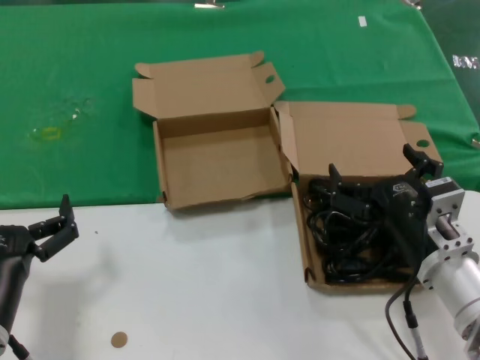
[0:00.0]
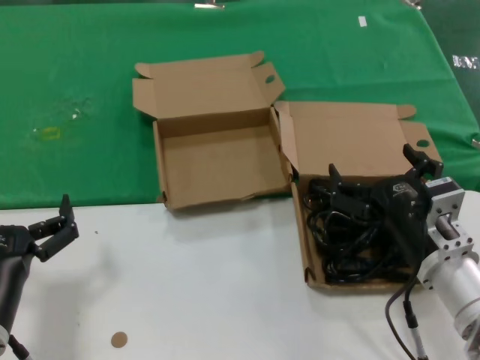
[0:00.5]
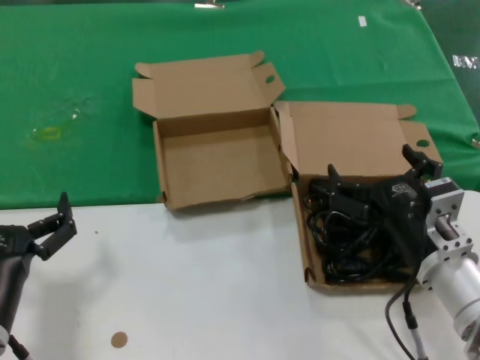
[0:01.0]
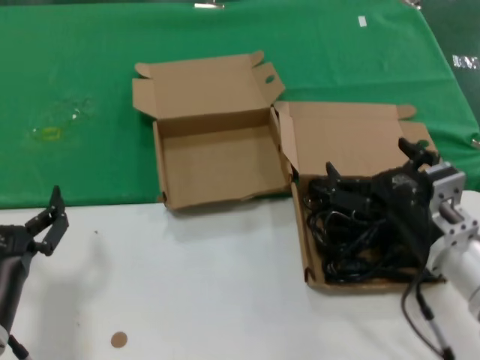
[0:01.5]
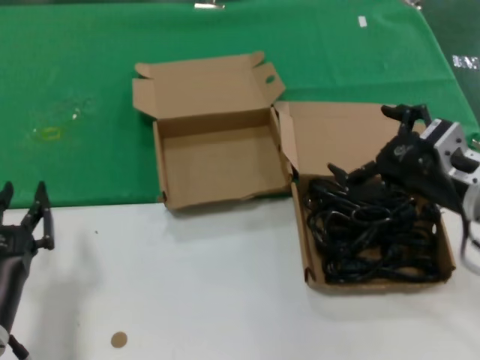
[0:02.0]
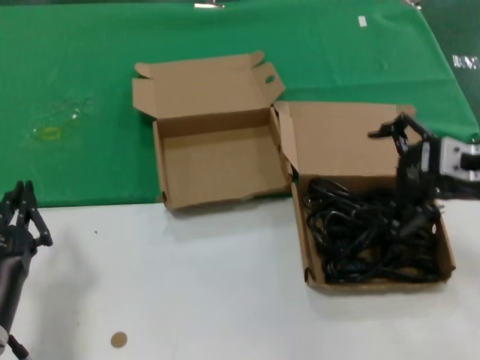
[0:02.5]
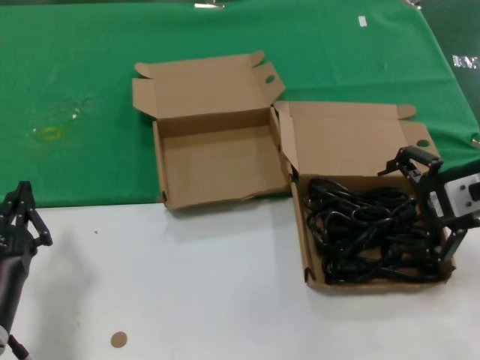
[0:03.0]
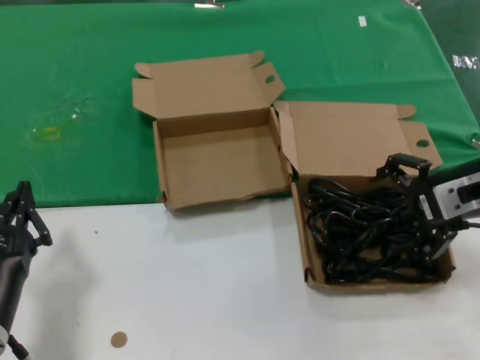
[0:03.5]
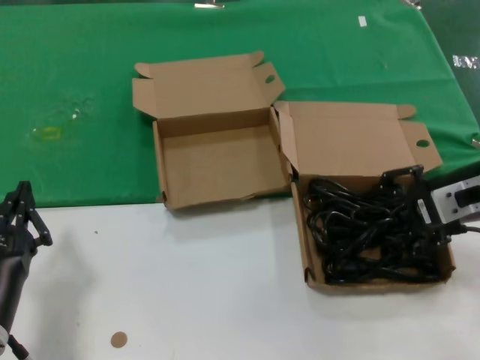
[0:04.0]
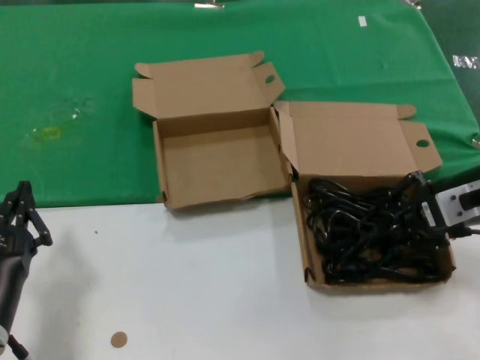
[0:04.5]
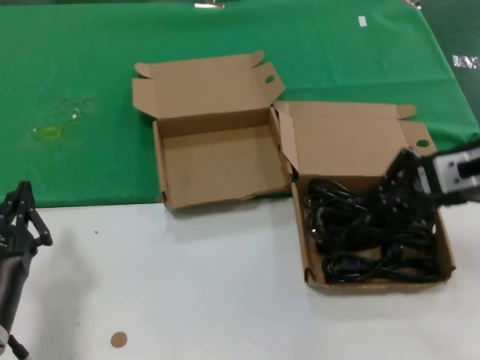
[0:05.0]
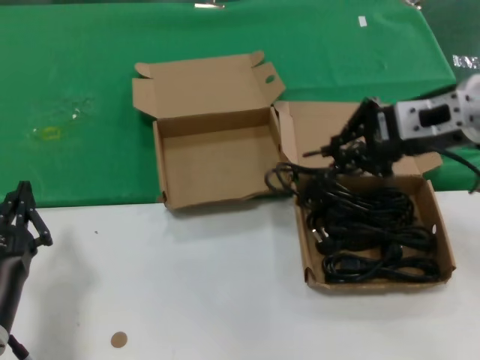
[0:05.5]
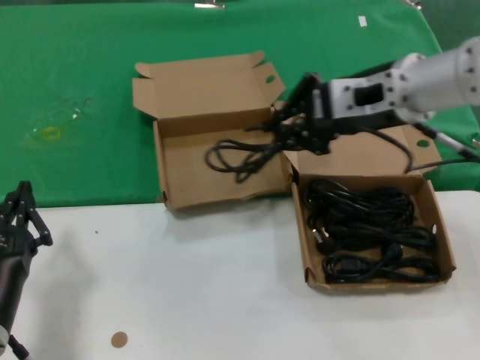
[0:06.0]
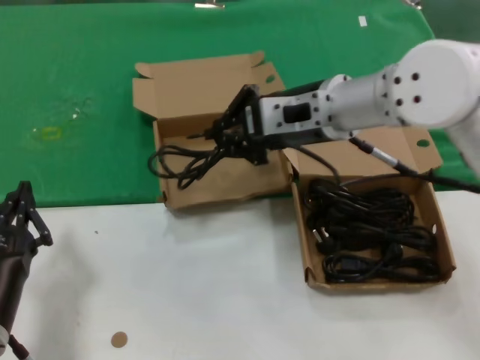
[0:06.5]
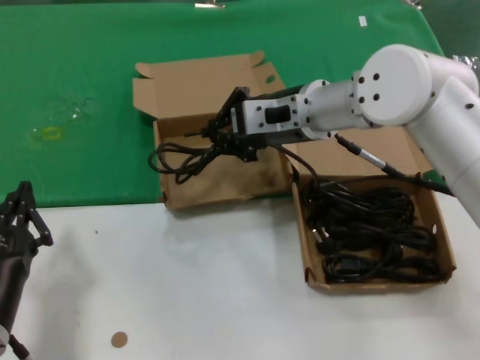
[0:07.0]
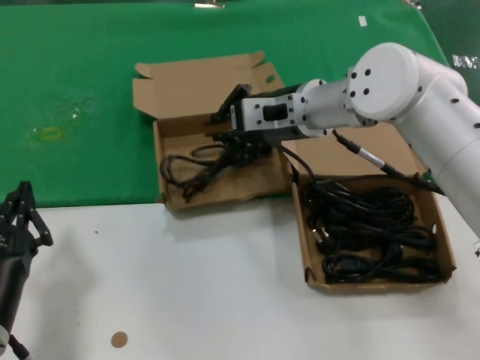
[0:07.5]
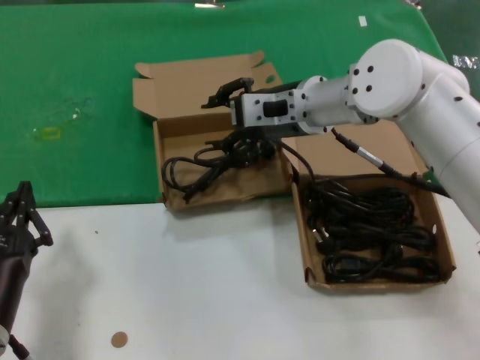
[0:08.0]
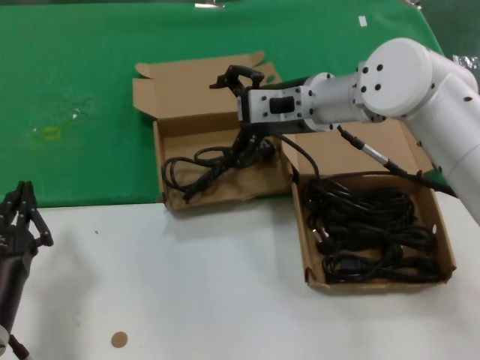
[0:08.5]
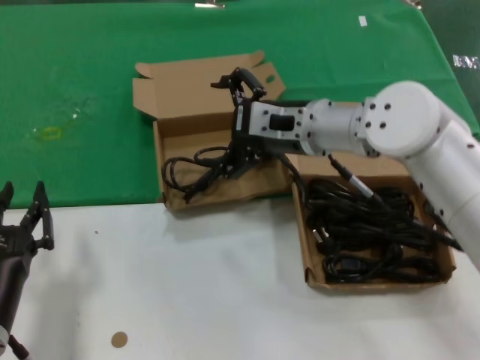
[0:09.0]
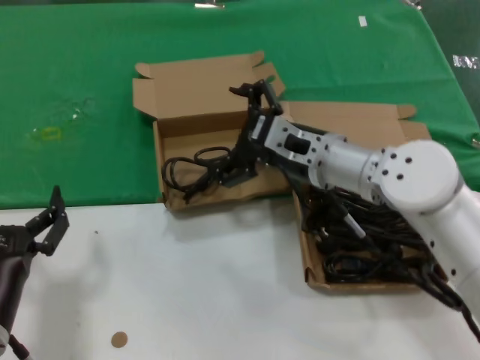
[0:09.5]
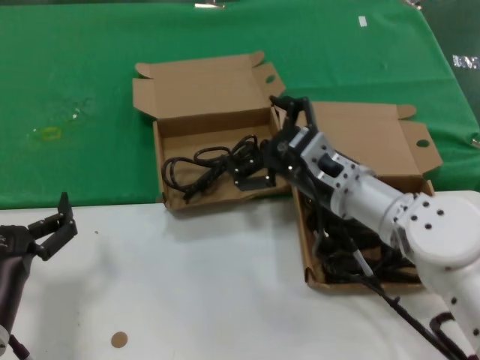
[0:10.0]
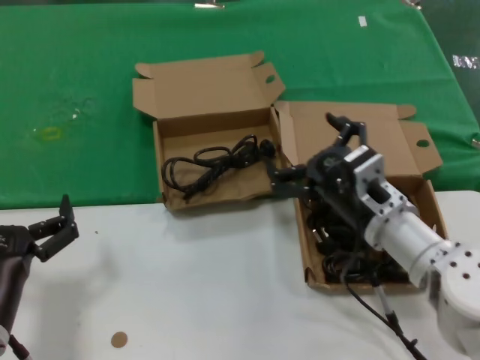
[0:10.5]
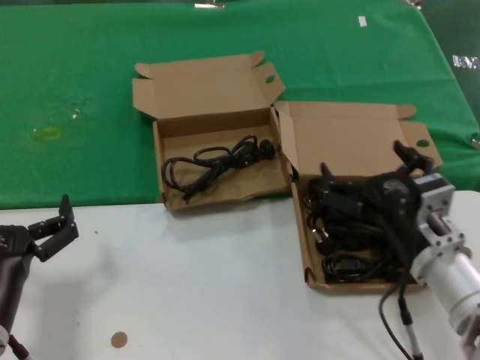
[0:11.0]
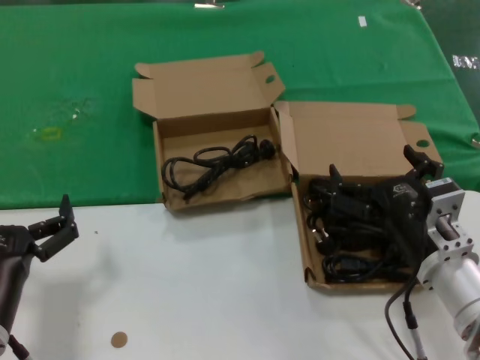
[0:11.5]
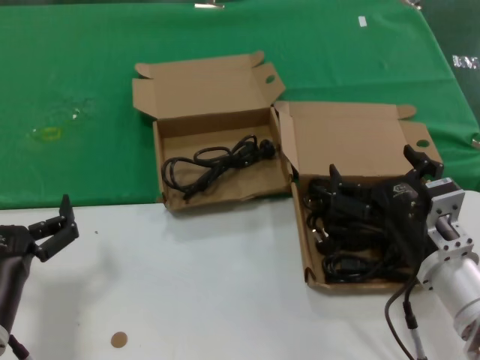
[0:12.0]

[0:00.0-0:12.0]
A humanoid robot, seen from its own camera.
Task of the whole recording: take the parts from the box containing them and put them into an empty box.
Step, 0.0 to 4.0 s: Grasp the data cable.
Step, 4.5 to 7.5 s: Place the data cable in the another box.
0.0 to 2.0 s: The right hand travels upward and to the right by about 10 cm.
2.0 to 4.0 s: The right hand shifts some 5 cm upward.
4.0 to 6.0 s: The right hand goes some 15 cm to the left and upward.
6.0 to 8.0 s: The right hand is displaced to the left, forward and downward by approximately 15 cm.
8.0 to 10.0 s: The right hand travels downward and backward by roughly 15 cm.
10.0 to 12.0 s: The right hand is displaced backward, to the right and downward by roughly 15 cm.

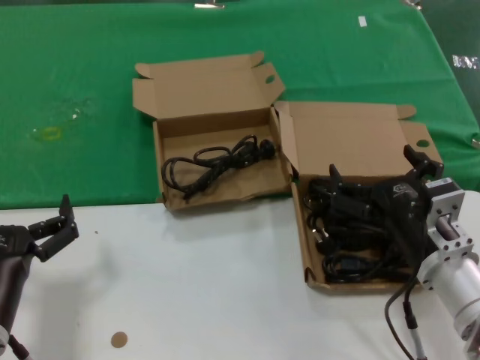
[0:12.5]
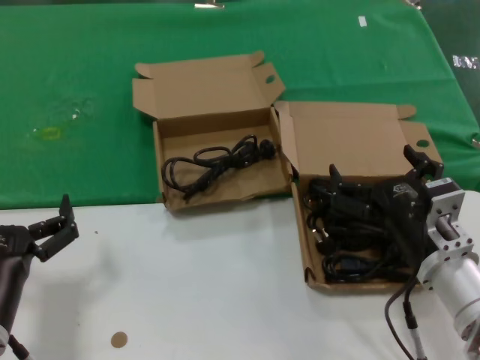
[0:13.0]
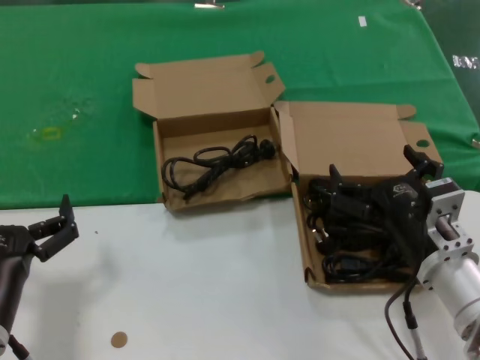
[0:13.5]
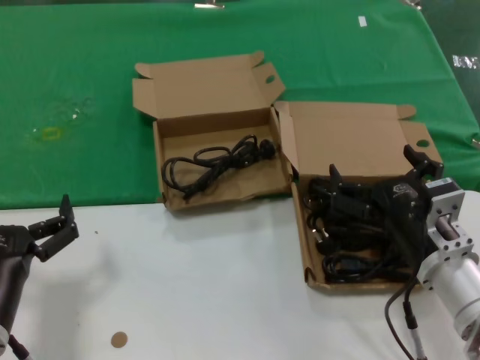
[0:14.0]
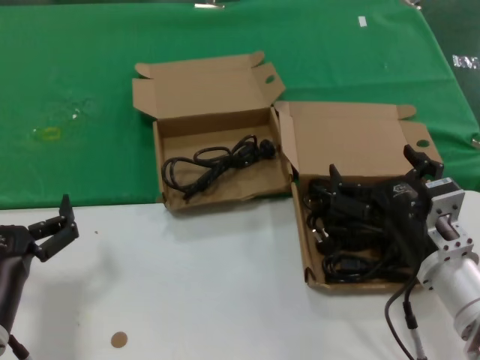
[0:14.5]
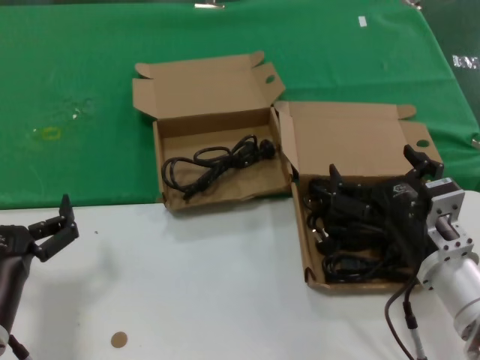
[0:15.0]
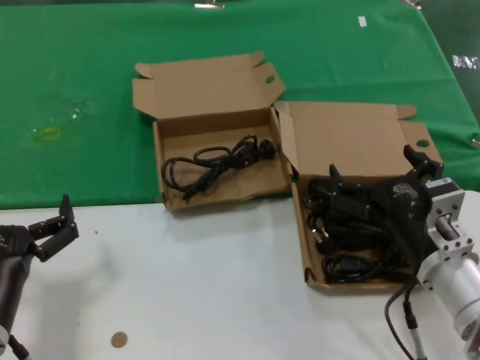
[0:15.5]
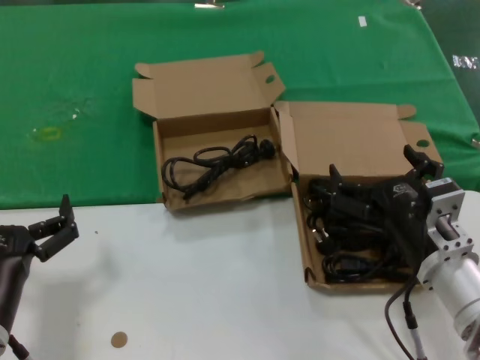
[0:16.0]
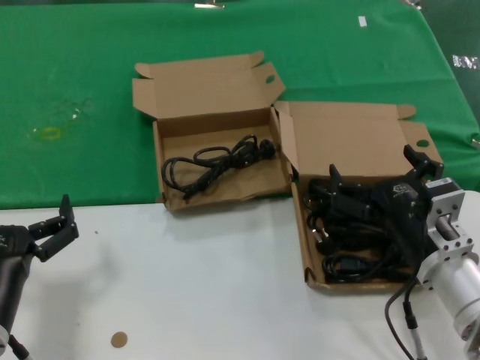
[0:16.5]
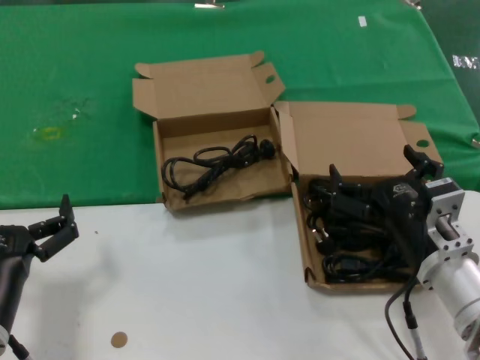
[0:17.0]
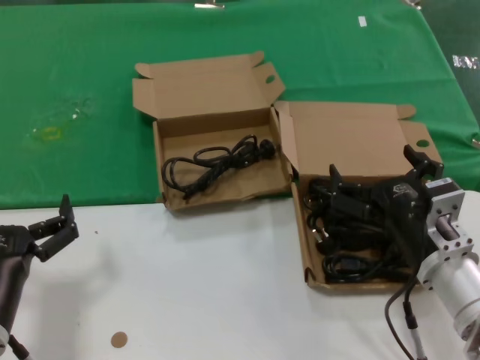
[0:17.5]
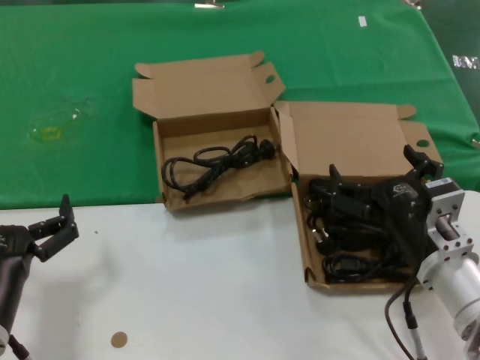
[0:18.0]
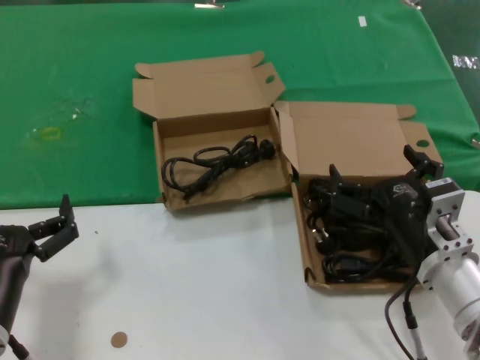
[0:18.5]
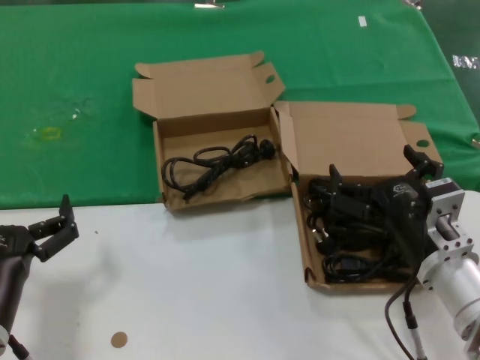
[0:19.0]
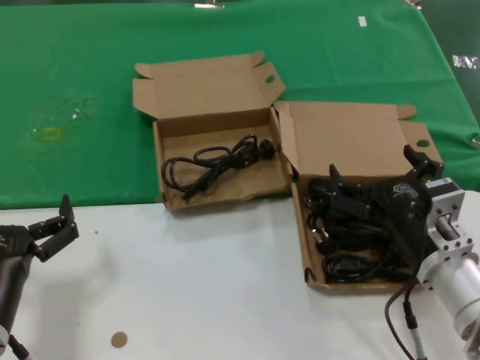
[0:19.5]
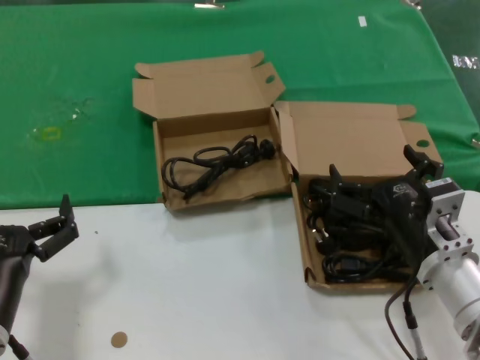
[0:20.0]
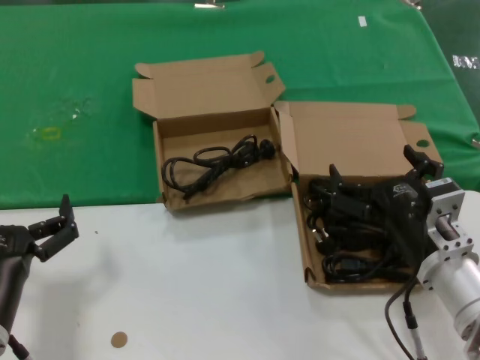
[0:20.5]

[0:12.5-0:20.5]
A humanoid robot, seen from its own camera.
Task of the whole recording: take the parts from the box containing them and put them into an empty box.
12.5 to 20.5 s: Both hands stay about where they are.

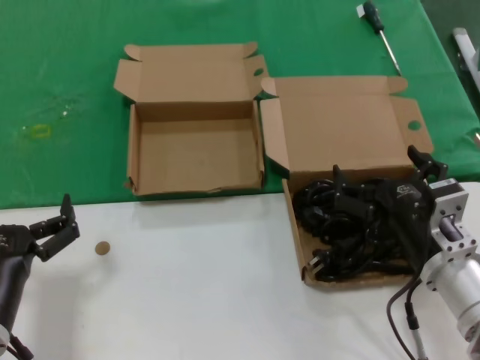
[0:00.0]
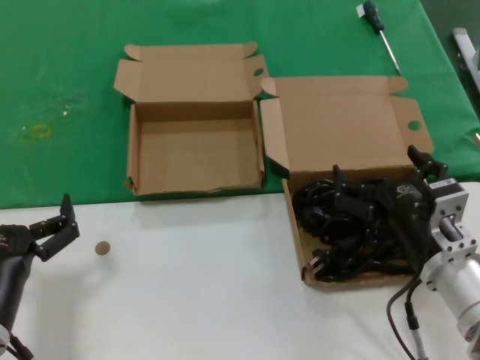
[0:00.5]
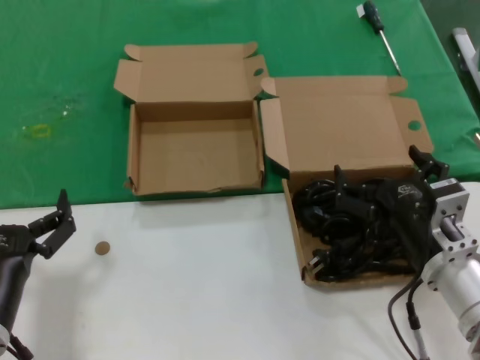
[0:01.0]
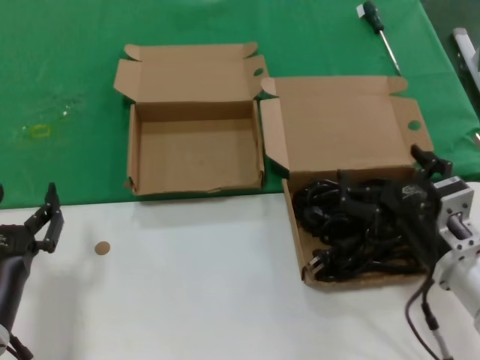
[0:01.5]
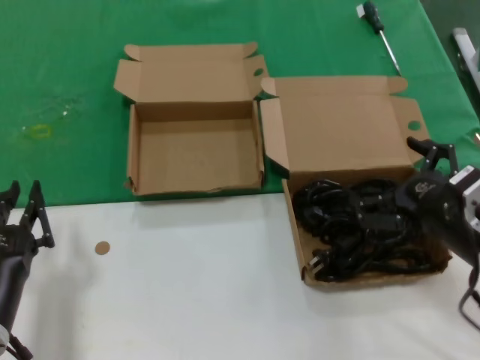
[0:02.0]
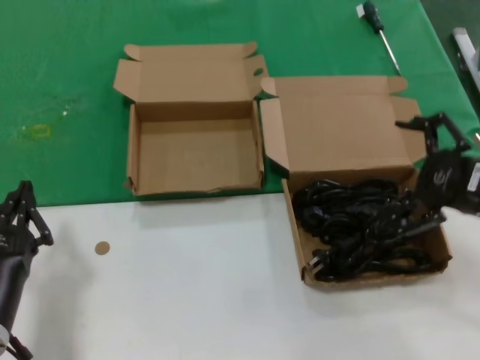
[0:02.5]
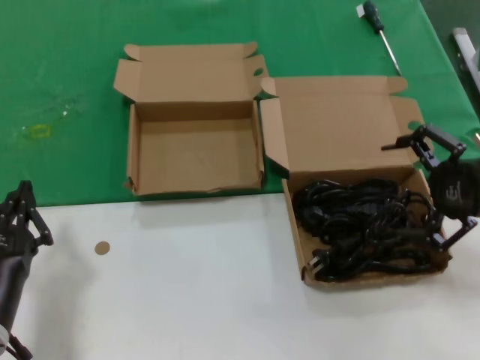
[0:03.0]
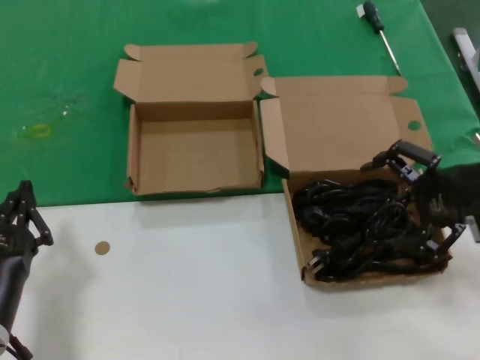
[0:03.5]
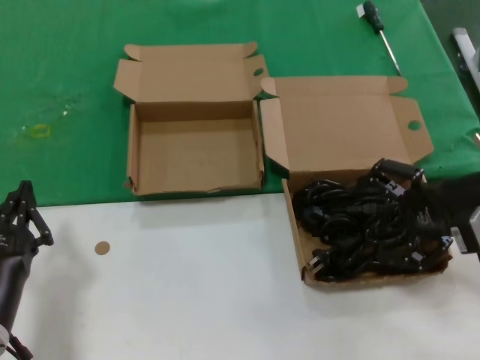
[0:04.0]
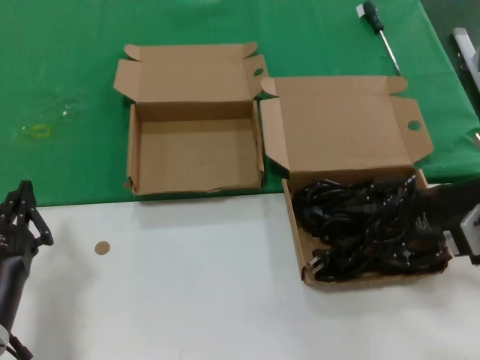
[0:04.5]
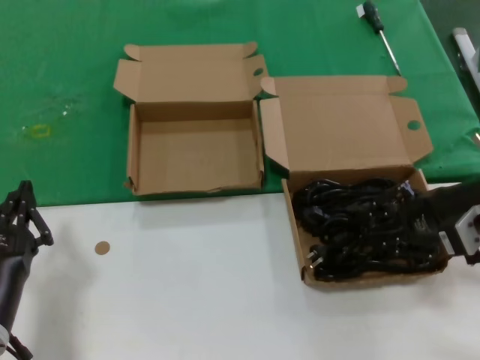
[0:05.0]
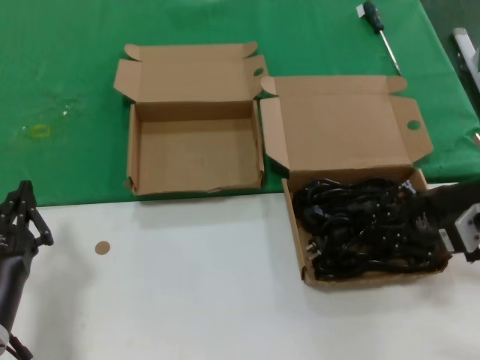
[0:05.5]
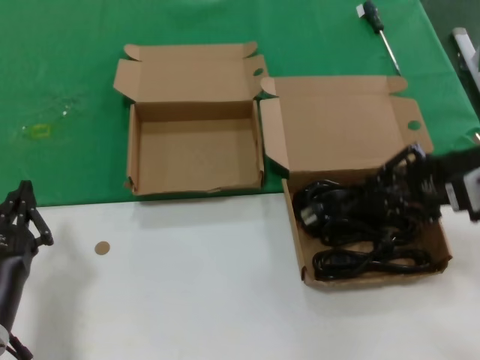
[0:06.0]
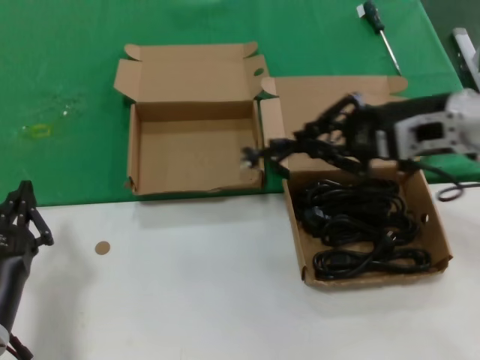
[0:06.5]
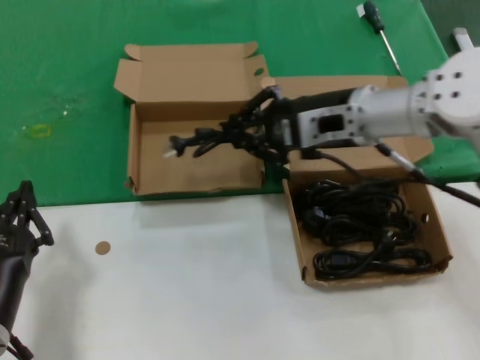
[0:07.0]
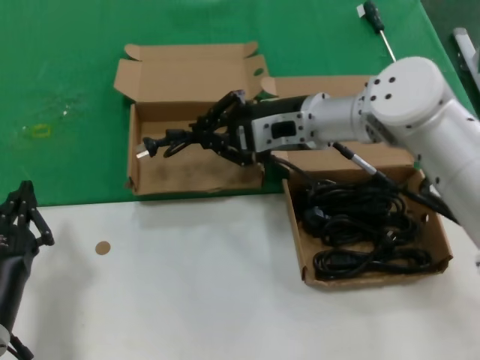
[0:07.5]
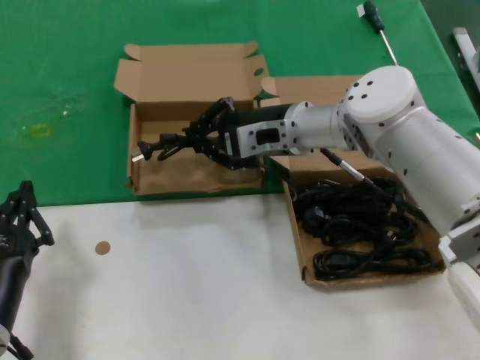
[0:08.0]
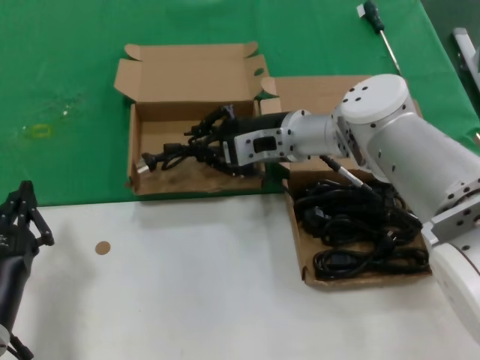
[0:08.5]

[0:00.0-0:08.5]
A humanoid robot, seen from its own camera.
Task of the whole recording: take the parts from the box containing them and put them into an empty box.
Step, 0.0 to 5.0 s: Grasp the data cable.
0.0 to 2.0 s: The right hand heads to the right, covering some 5 cm.
2.0 to 4.0 s: The right hand heads upward and forward, covering roughly 10 cm.
4.0 to 6.5 s: The right hand moves forward and to the left, approximately 10 cm.
6.5 to 8.5 s: The right hand shifts approximately 20 cm to the left, forward and downward.
